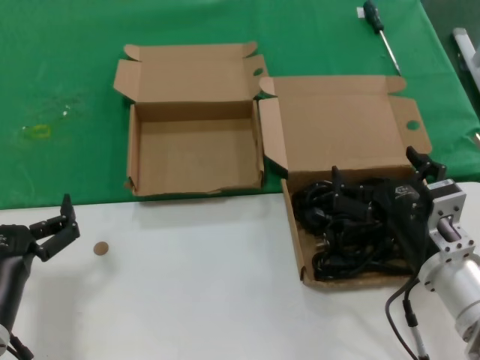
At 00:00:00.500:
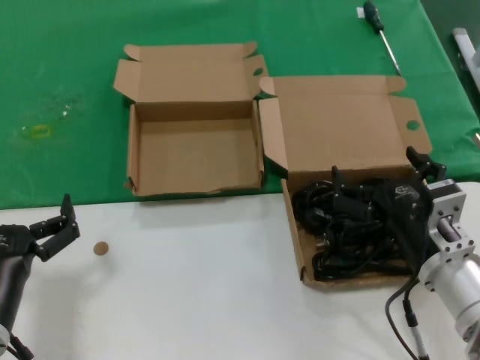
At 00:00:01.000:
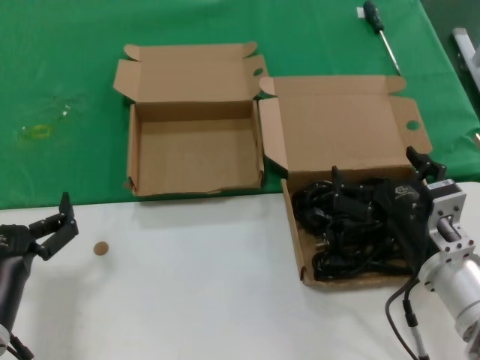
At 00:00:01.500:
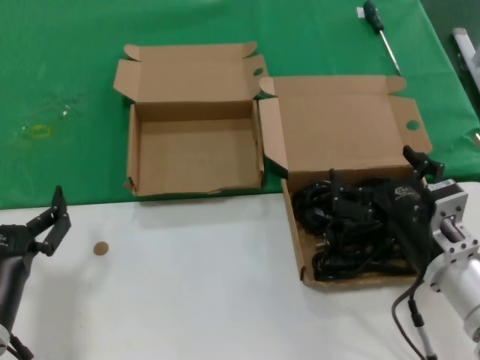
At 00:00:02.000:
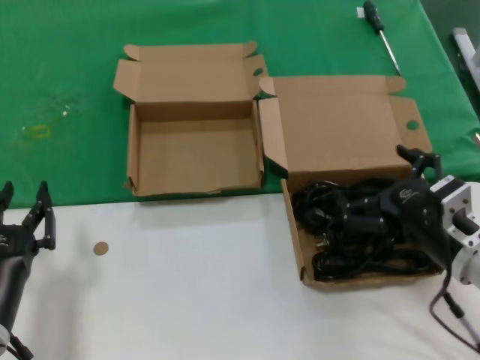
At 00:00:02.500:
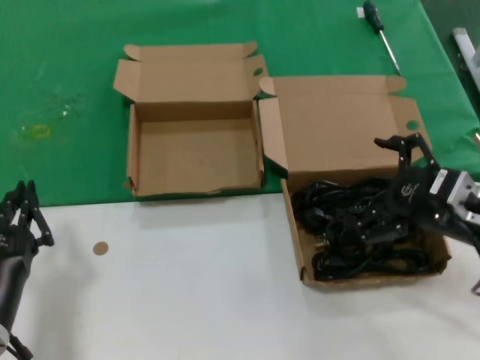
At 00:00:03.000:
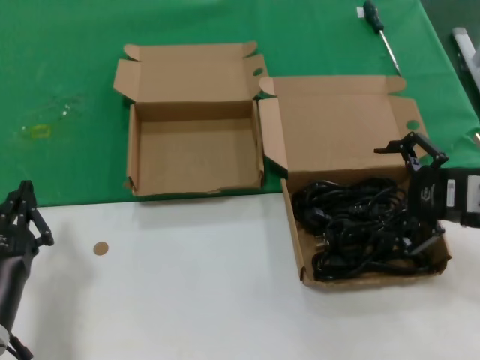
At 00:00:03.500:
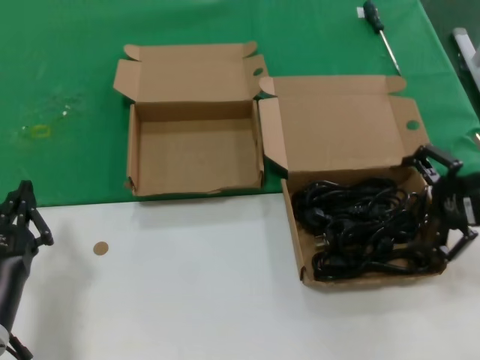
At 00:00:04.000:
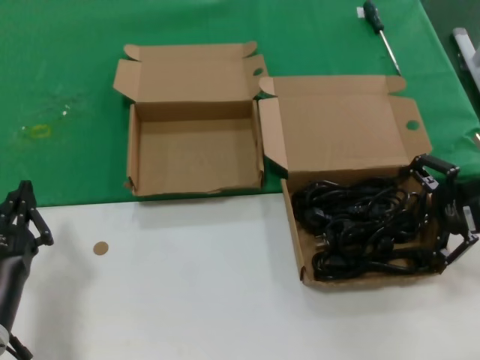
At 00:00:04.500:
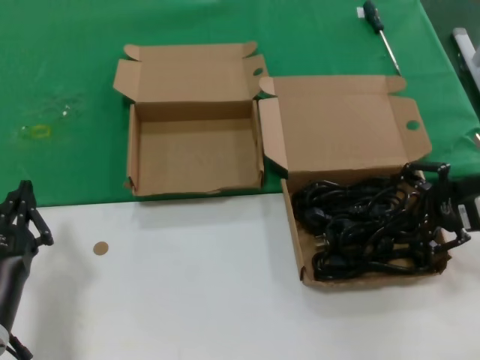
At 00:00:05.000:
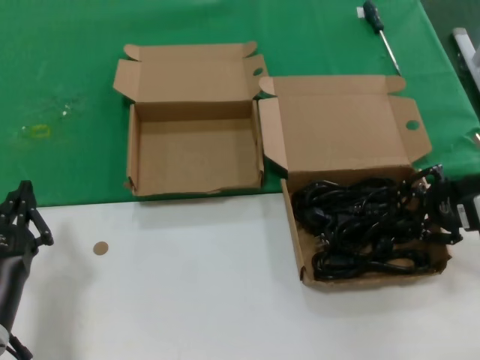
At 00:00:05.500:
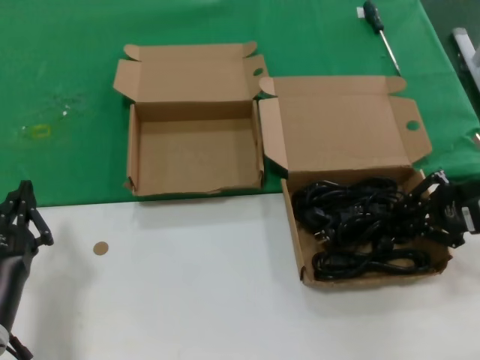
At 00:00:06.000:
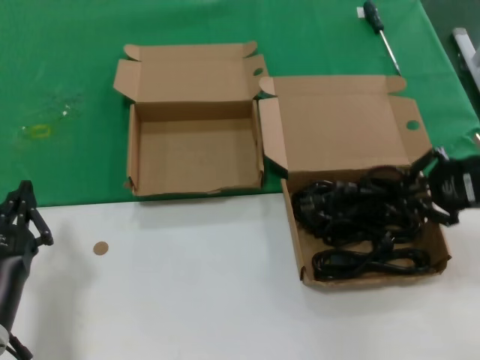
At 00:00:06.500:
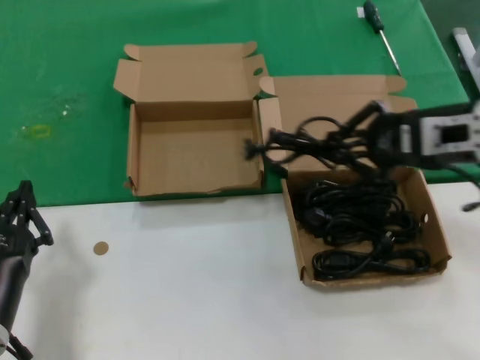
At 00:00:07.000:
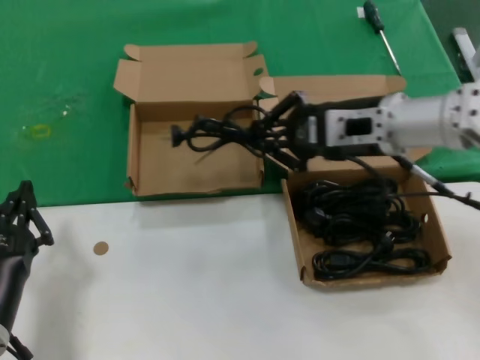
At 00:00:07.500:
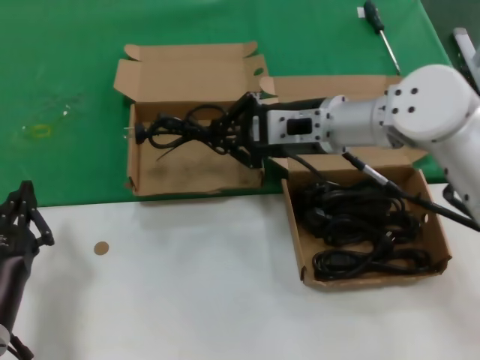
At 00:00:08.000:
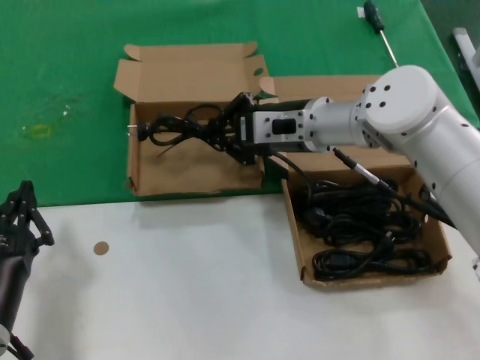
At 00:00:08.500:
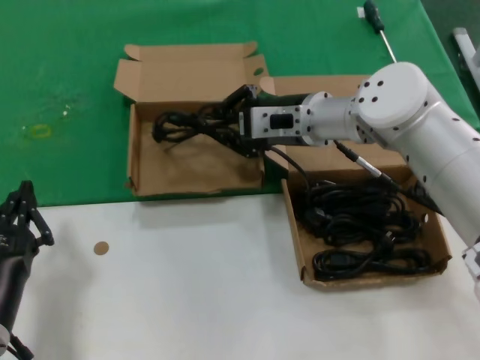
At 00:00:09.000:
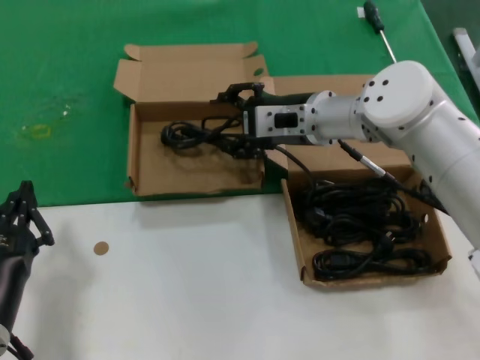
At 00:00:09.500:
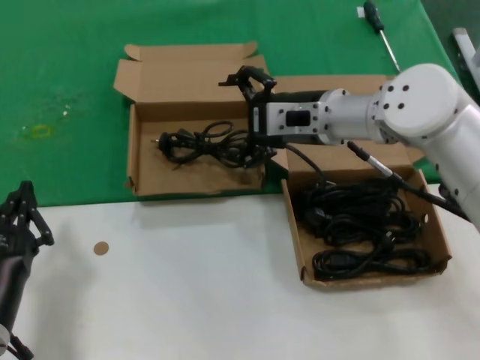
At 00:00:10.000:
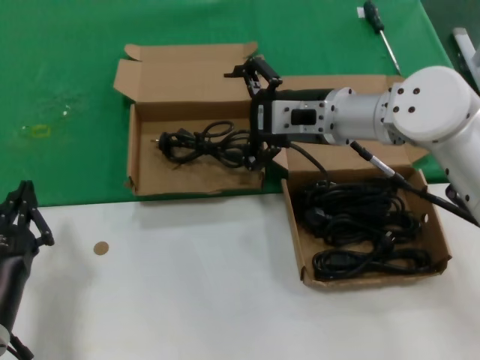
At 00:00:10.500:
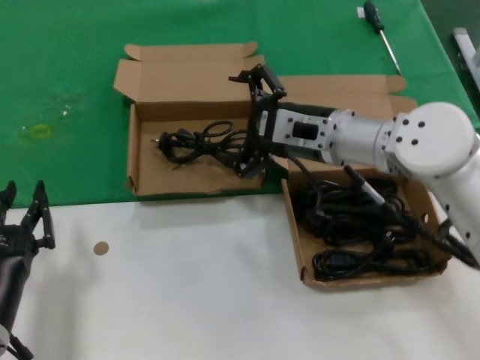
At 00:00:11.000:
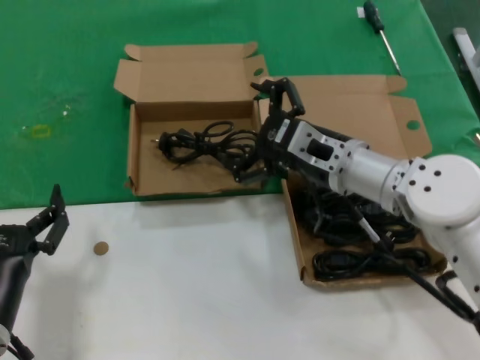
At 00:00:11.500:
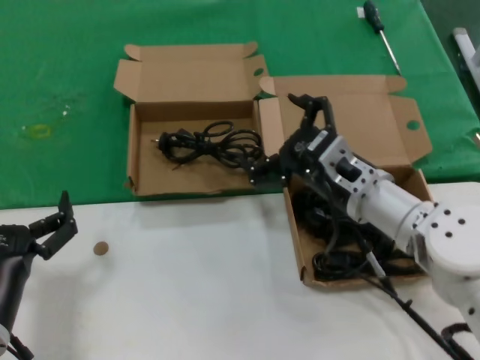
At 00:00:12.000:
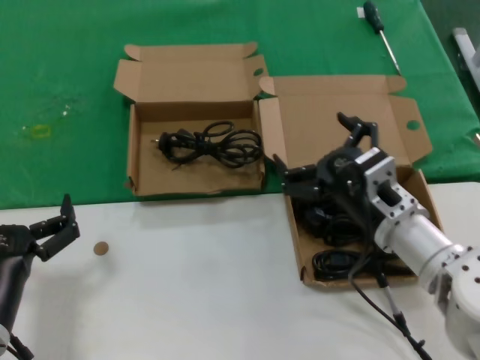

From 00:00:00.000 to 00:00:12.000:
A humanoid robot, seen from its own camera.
Task of the whole recording: take the parts from the box containing them and put them into an empty box.
Step, from 00:00:00.000 to 00:00:05.500: Grasp the data cable.
Step, from 00:00:06.000 to 00:00:09.000: Place the data cable in the another box.
From 00:00:00.000 to 00:00:02.000: The right hand moves some 5 cm.
From 00:00:02.000 to 00:00:04.000: The right hand shifts about 15 cm to the right, upward and forward.
From 00:00:04.000 to 00:00:06.000: The hands make only small movements.
From 00:00:06.000 to 00:00:08.000: The right hand is displaced to the left and forward by some 25 cm.
From 00:00:08.000 to 00:00:10.000: The hands stay close to where they were, moving slightly.
From 00:00:10.000 to 00:00:12.000: The right hand goes some 20 cm backward and downward.

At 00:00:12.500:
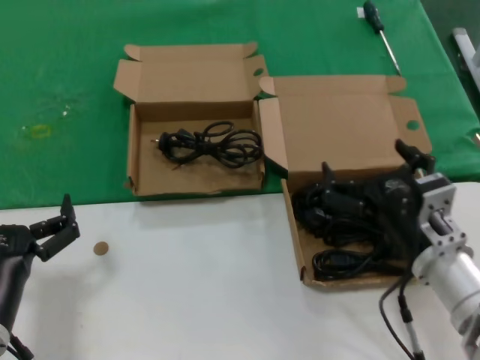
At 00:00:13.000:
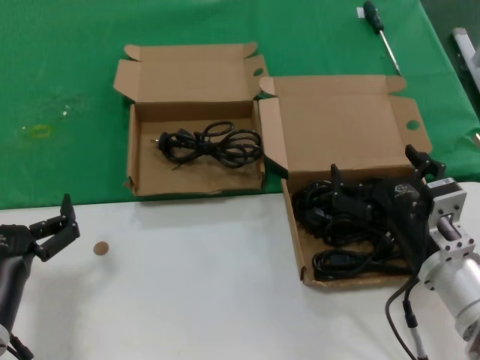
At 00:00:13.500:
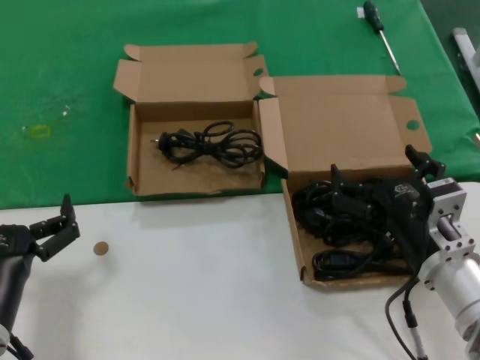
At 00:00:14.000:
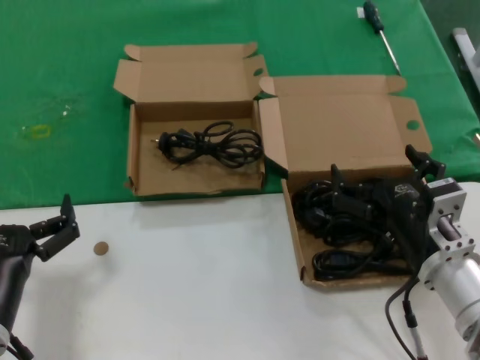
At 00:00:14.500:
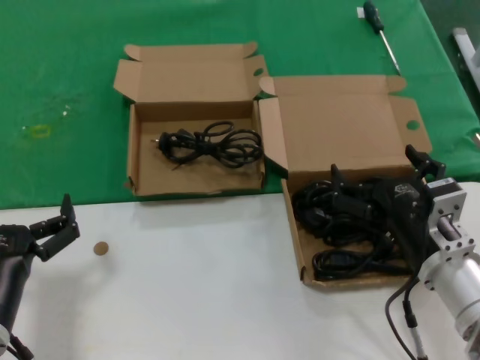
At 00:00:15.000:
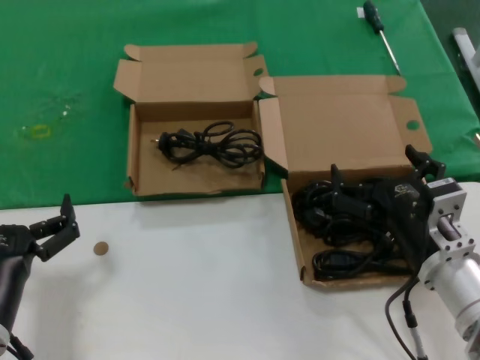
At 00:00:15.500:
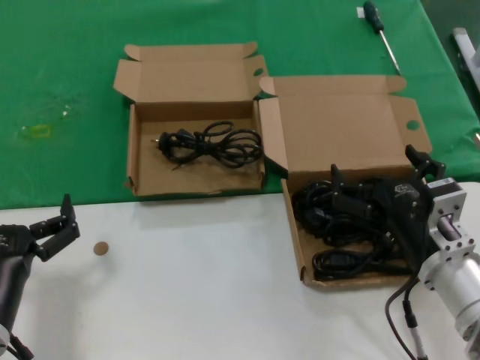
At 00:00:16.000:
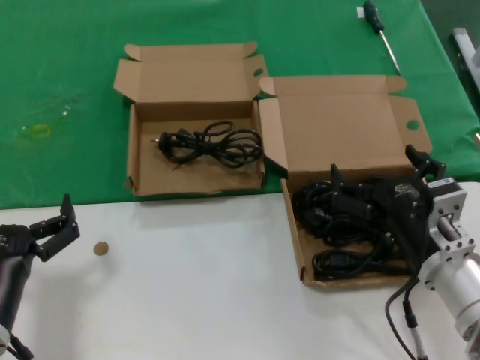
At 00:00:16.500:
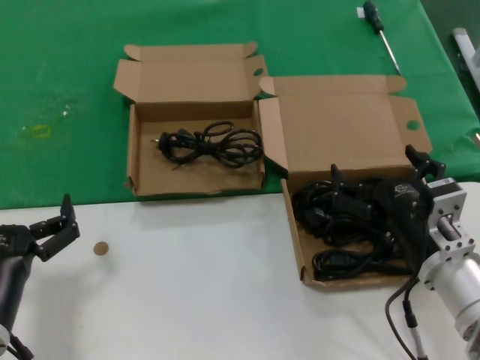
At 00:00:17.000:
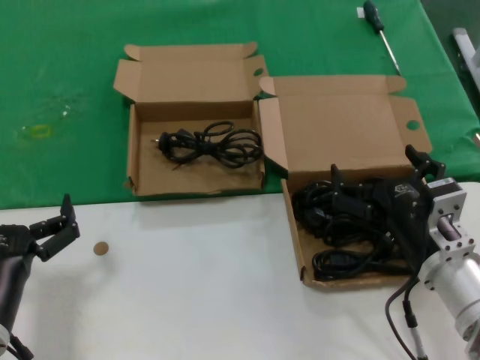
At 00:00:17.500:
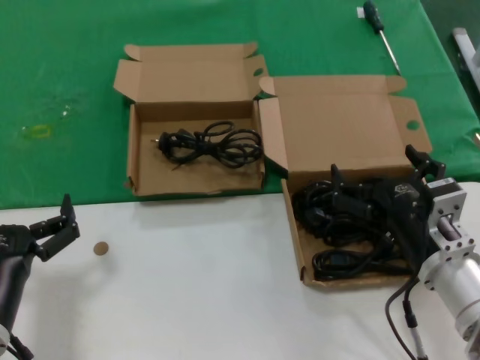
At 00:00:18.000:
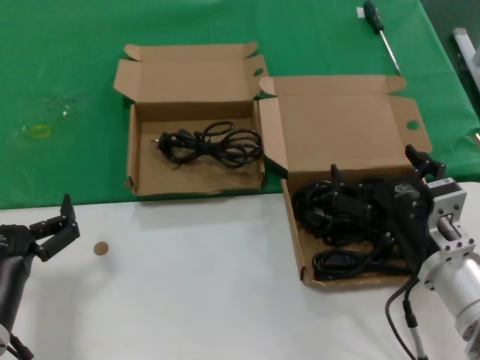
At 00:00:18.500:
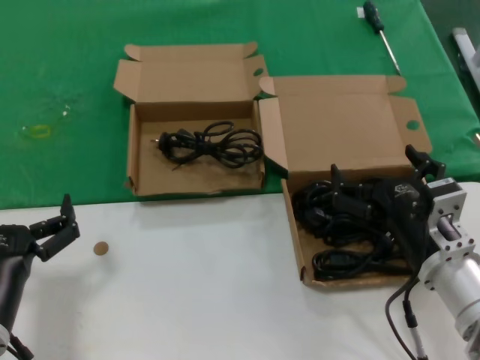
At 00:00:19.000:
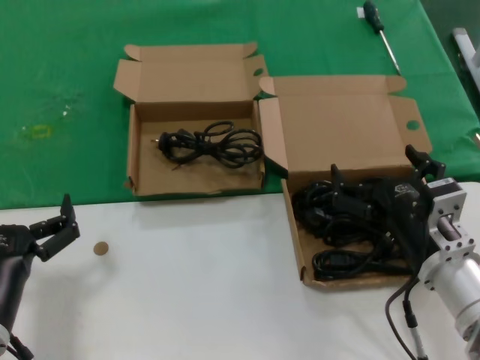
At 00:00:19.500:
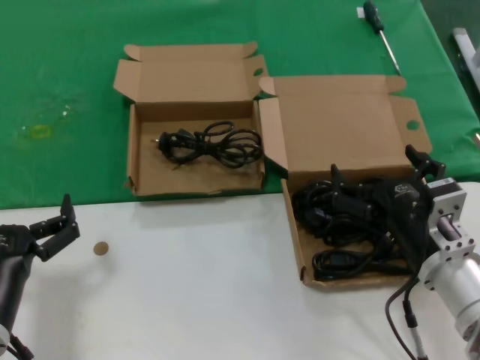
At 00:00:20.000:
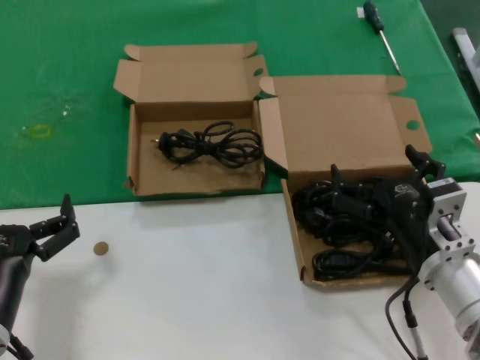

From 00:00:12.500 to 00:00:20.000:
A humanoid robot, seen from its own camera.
Task of the whole recording: take the parts from the box containing them and put them into an empty box.
From 00:00:12.500 to 00:00:20.000: Neither hand changes place.

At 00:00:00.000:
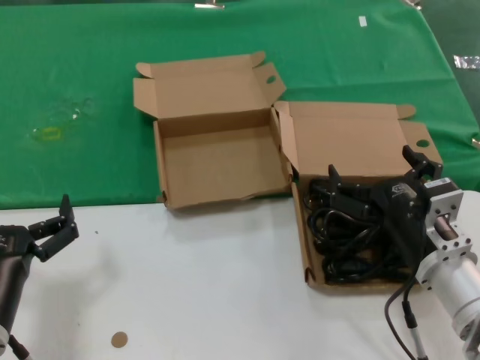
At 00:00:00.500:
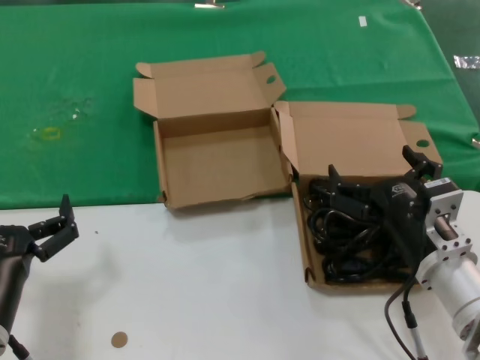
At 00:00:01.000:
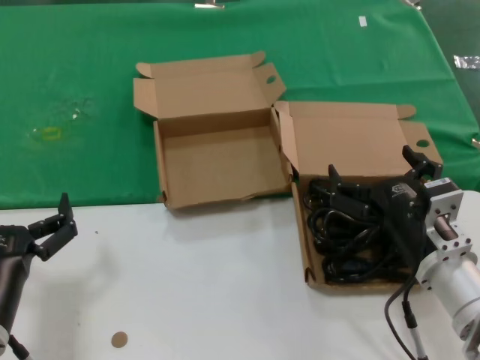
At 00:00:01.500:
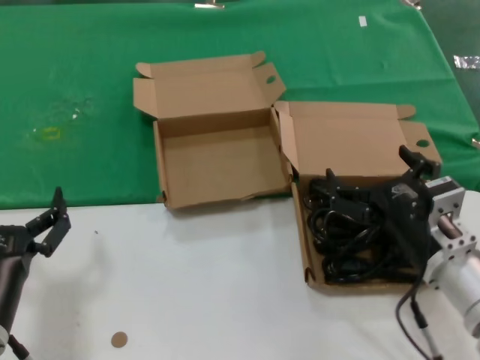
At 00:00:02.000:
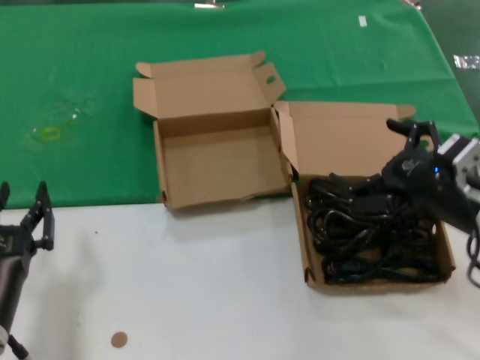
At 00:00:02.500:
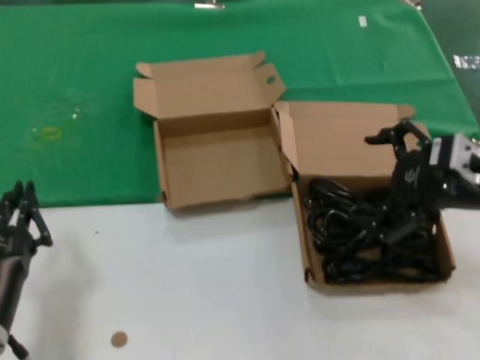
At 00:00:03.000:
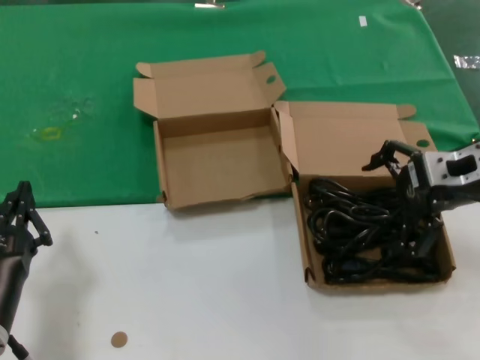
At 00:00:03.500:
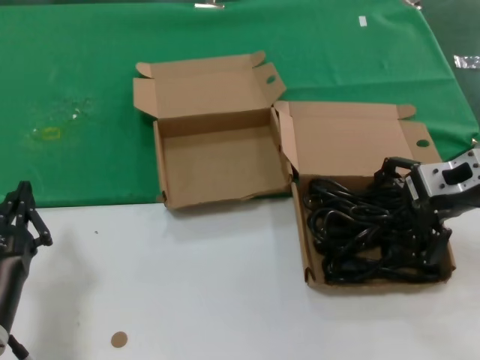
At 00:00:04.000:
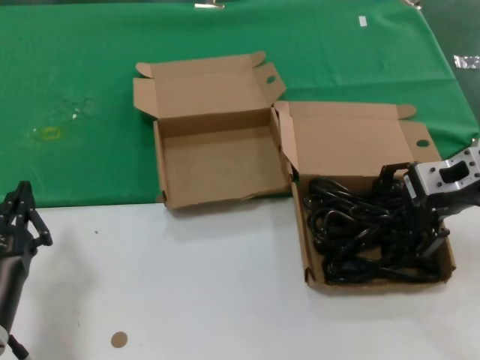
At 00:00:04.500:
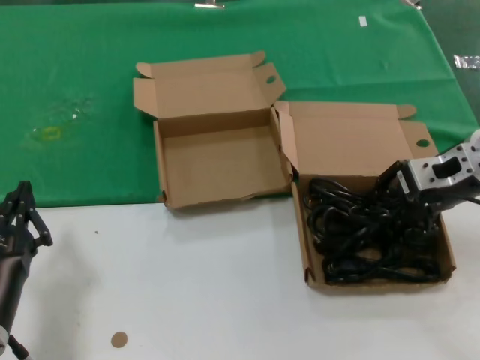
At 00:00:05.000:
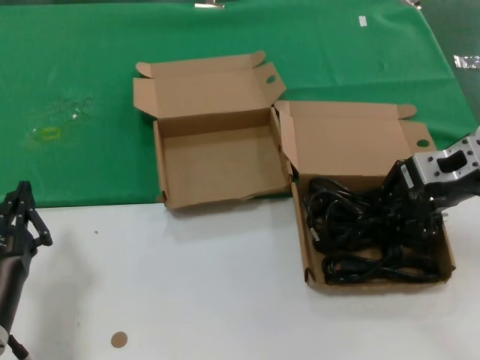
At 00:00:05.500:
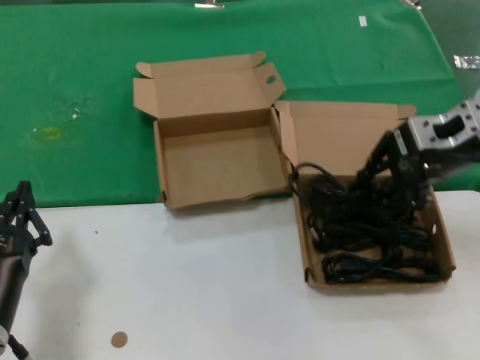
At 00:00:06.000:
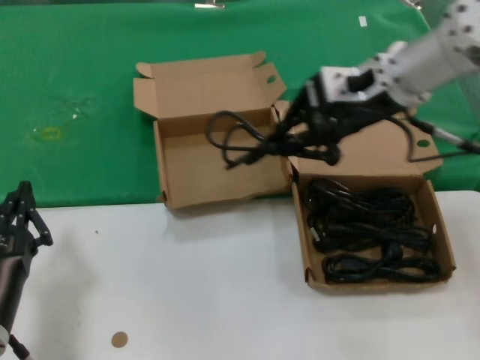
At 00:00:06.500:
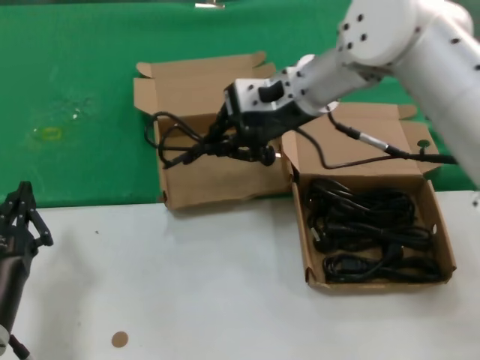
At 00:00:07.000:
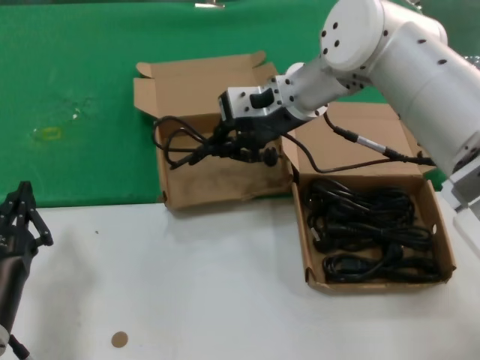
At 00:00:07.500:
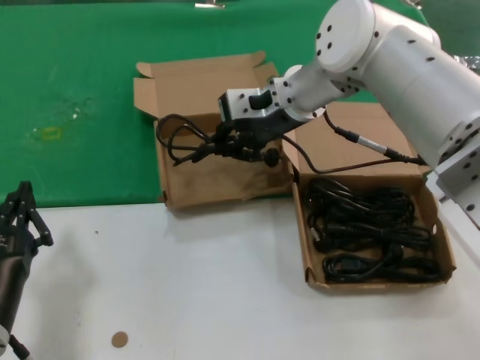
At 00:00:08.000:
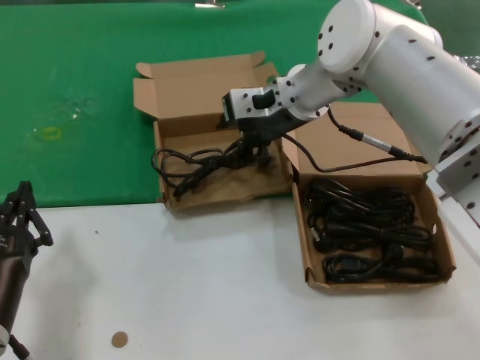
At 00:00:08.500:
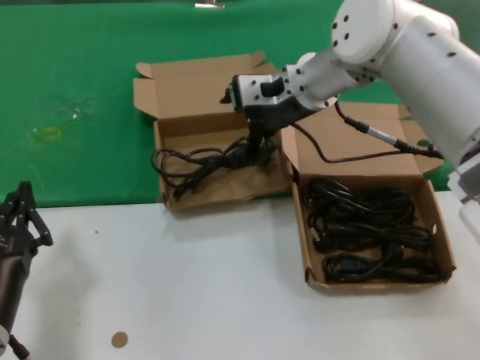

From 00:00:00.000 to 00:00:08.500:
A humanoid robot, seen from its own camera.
Task of the whole recording: take the parts from the box containing them and put them into an empty box.
Step, from 00:00:00.000 to 00:00:05.000: Grasp the data cable.
From 00:00:00.000 to 00:00:02.000: The right hand goes approximately 10 cm upward and to the right.
From 00:00:02.000 to 00:00:04.000: The right hand heads forward and upward, covering some 15 cm.
From 00:00:04.000 to 00:00:06.500: The right hand is displaced to the left and forward by roughly 20 cm.
From 00:00:06.500 to 00:00:08.500: The hands move only a little.
